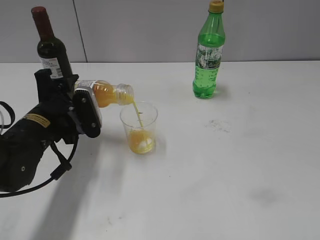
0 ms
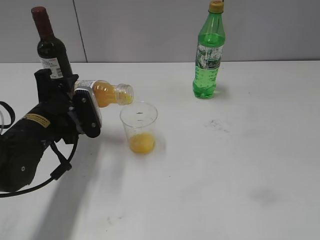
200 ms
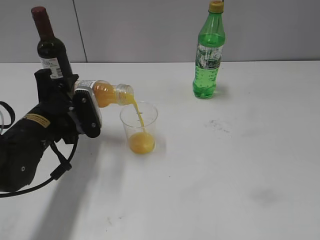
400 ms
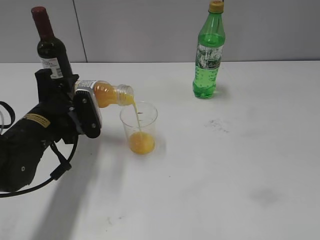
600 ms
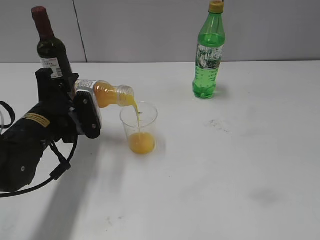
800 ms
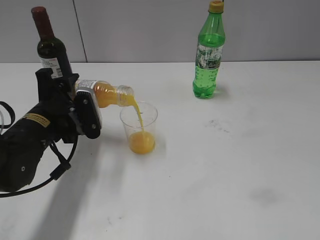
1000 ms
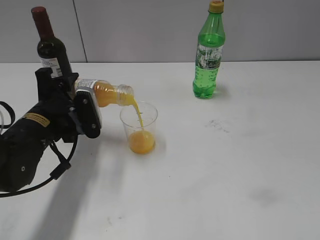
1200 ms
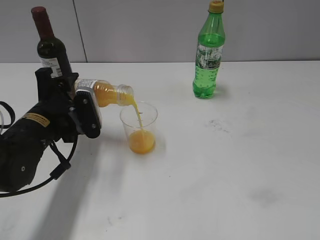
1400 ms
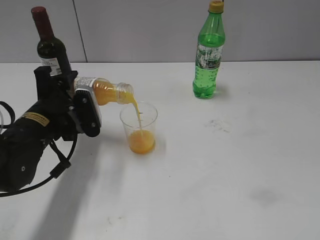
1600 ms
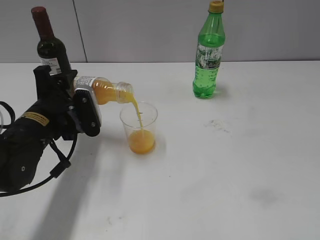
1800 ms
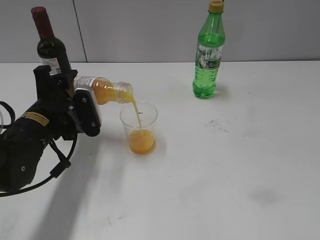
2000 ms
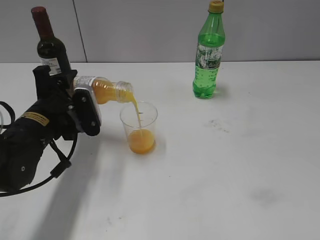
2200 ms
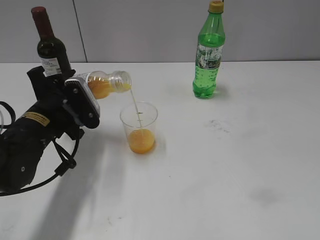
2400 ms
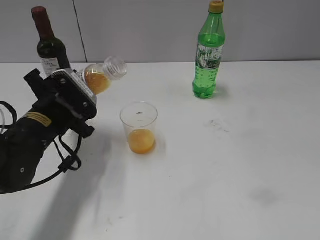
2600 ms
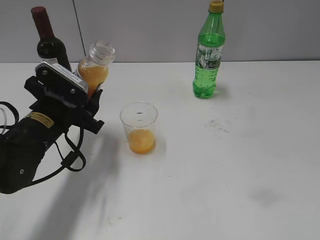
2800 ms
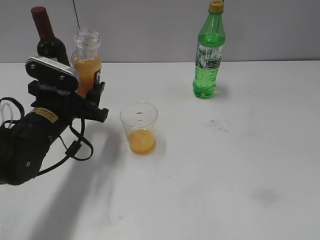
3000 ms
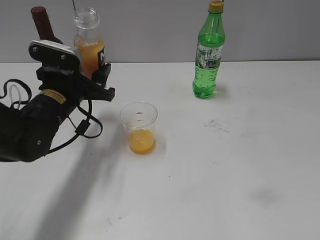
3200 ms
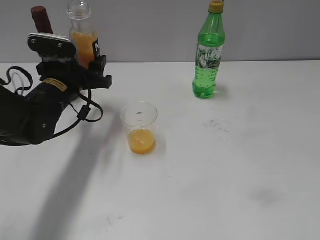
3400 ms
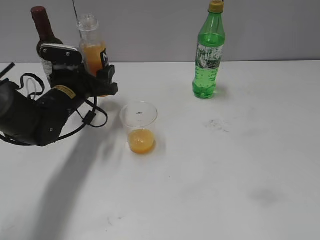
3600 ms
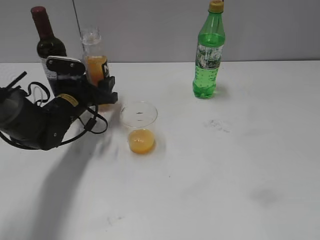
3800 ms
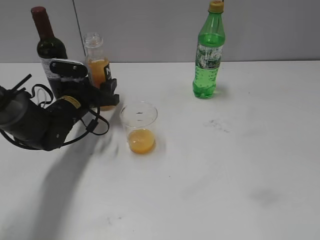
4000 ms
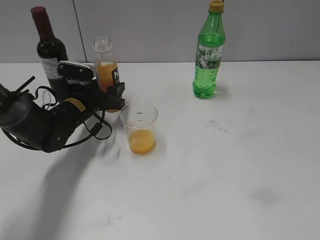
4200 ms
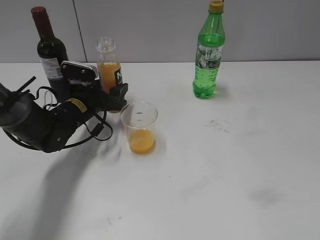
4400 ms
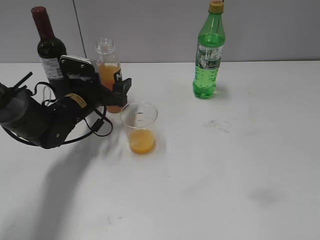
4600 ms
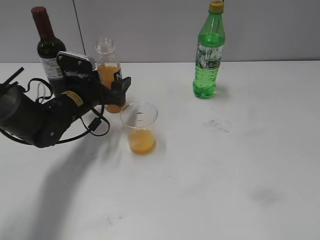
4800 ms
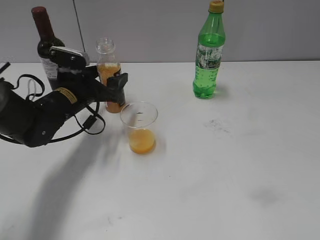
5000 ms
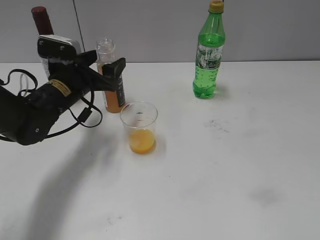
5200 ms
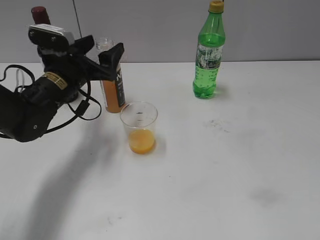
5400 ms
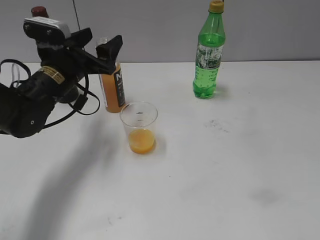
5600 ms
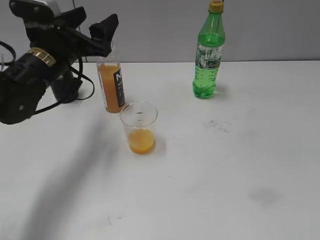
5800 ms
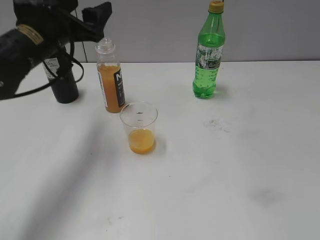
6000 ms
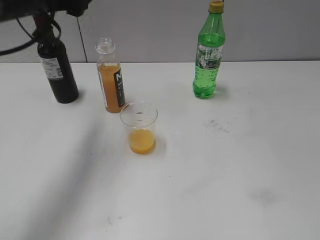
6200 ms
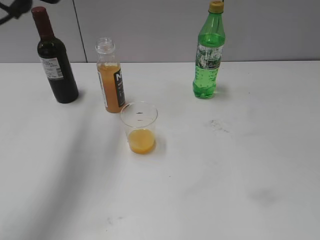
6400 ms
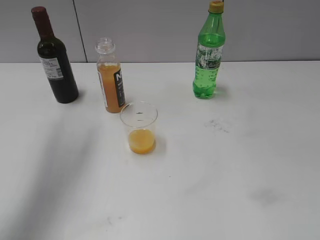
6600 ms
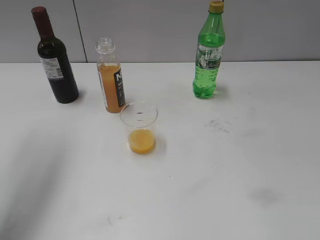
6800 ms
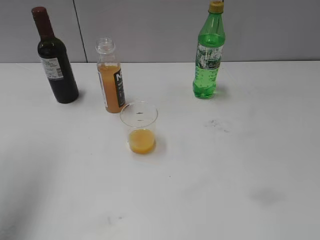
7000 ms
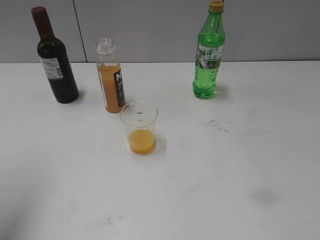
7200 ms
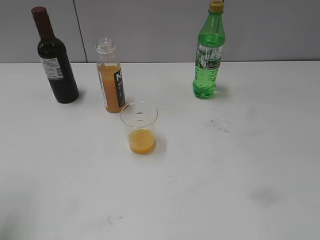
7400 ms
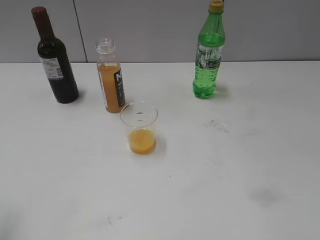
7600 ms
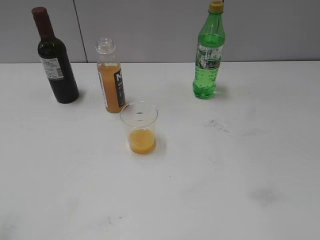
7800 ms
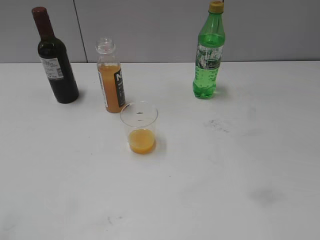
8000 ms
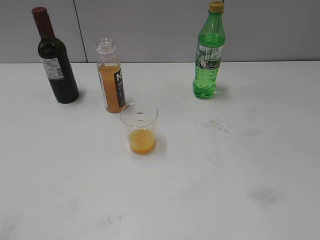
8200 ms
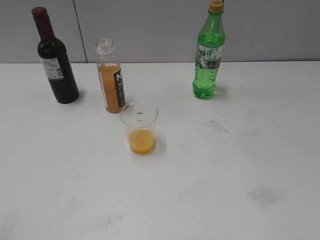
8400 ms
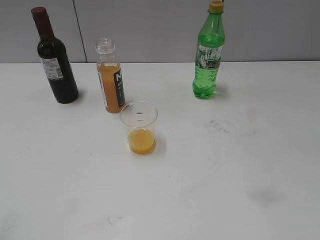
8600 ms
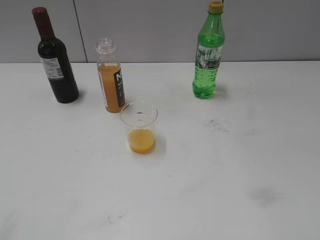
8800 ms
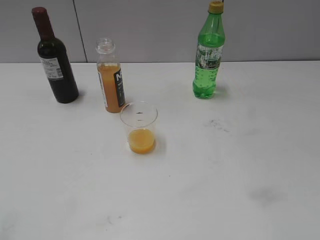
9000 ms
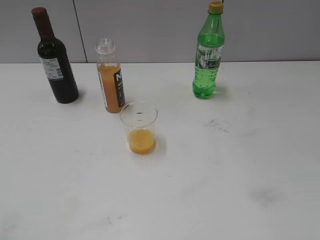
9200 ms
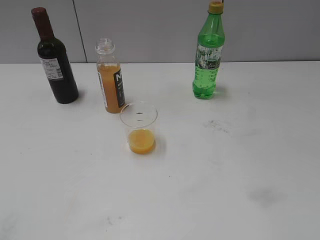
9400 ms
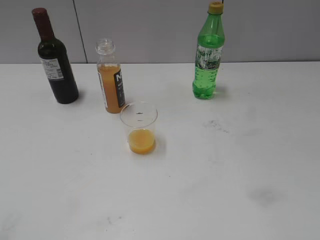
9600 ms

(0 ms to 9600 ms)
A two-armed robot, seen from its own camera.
Step, 0 ms - 2600 ms: Pour the orange juice from bottle to cup with left gripper.
Step, 2800 ms - 4600 ms: Place the orange juice bottle on the table with left gripper.
0 ms - 1600 ms: The two grippers keep their place.
3200 ms - 4800 ms: The left gripper heads forward, covering approximately 5 cm, and opens up.
4800 ms - 6400 ms: The left gripper goes some 25 cm upward.
6400 ms - 8000 ms: The left gripper goes some 30 cm backward and to the left.

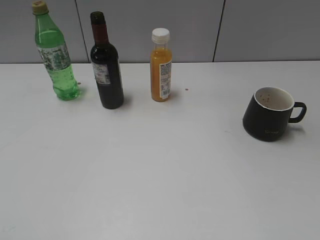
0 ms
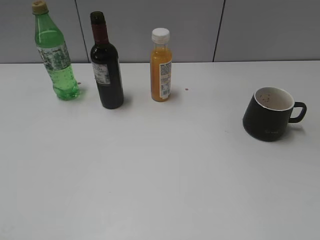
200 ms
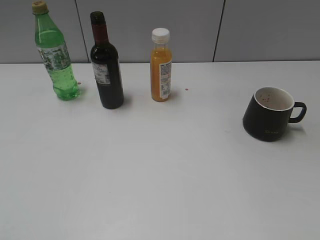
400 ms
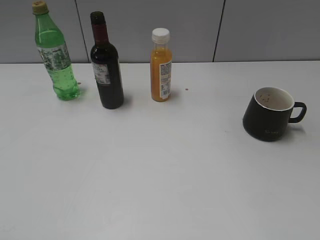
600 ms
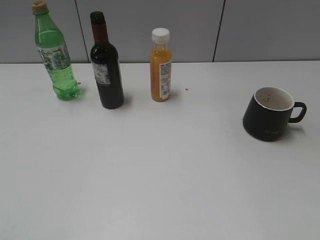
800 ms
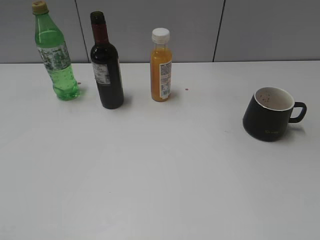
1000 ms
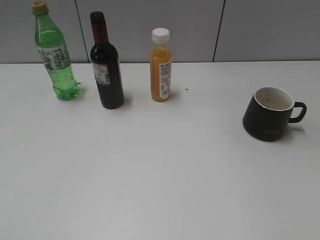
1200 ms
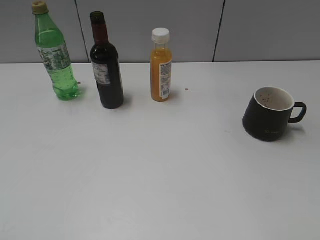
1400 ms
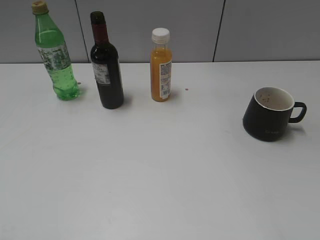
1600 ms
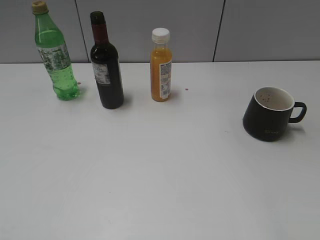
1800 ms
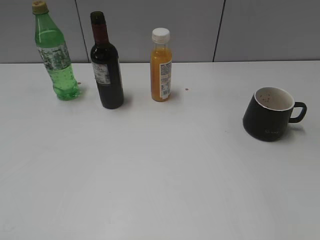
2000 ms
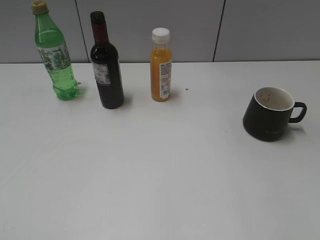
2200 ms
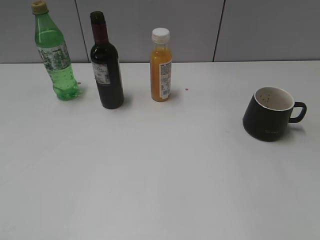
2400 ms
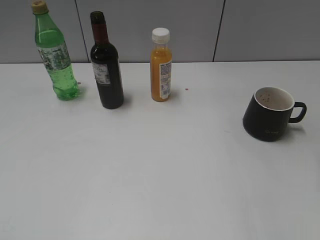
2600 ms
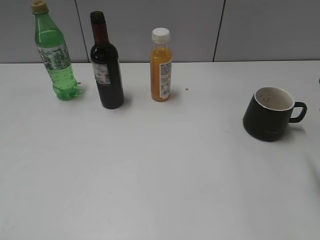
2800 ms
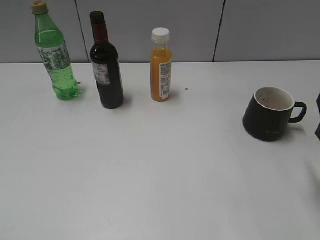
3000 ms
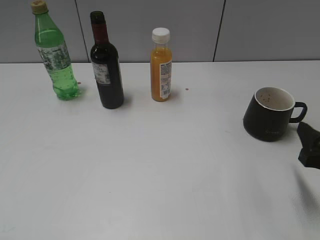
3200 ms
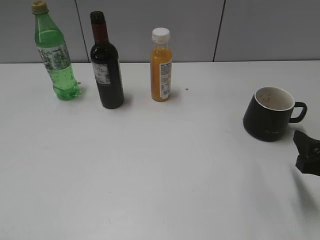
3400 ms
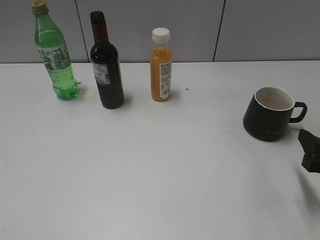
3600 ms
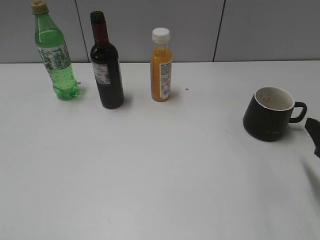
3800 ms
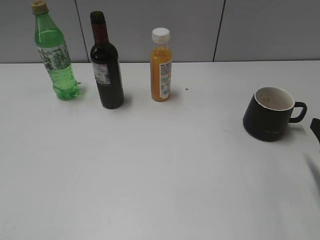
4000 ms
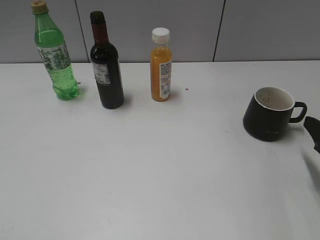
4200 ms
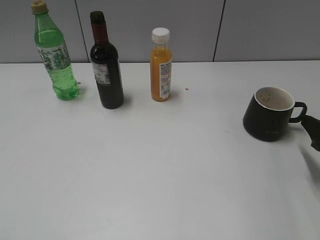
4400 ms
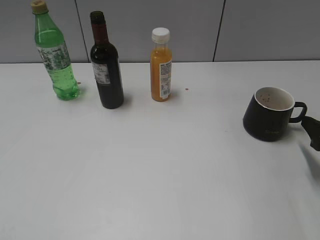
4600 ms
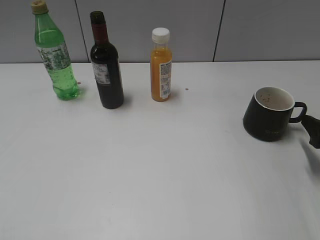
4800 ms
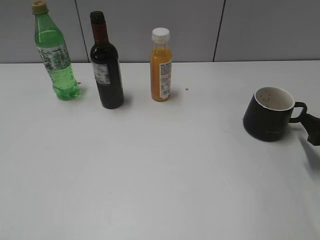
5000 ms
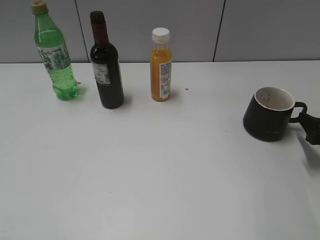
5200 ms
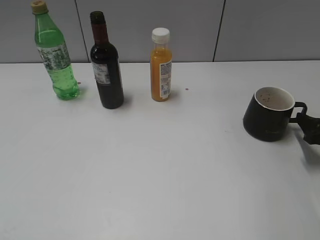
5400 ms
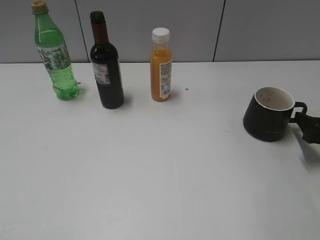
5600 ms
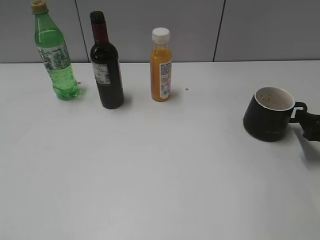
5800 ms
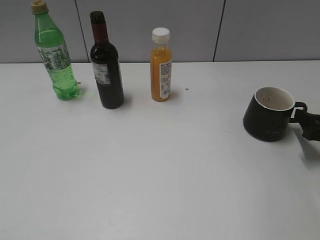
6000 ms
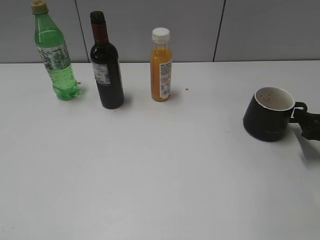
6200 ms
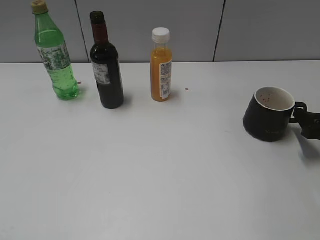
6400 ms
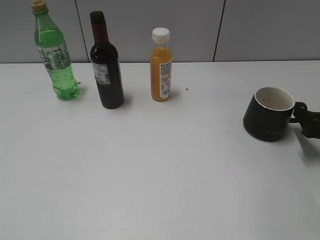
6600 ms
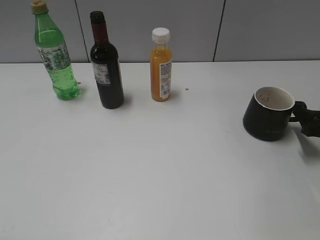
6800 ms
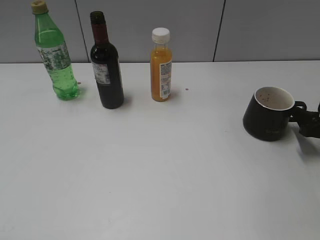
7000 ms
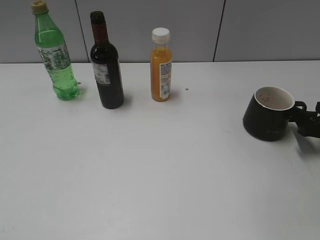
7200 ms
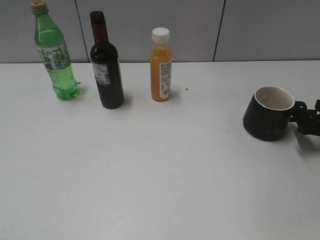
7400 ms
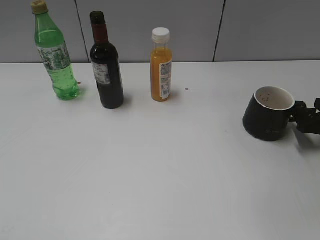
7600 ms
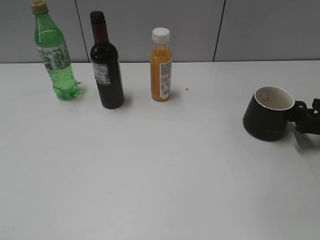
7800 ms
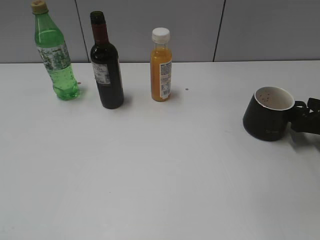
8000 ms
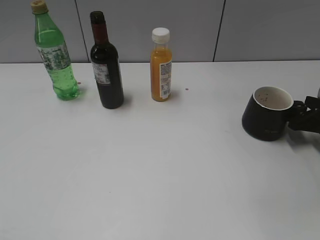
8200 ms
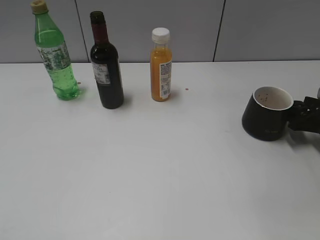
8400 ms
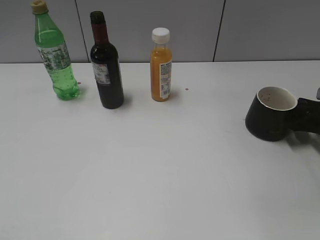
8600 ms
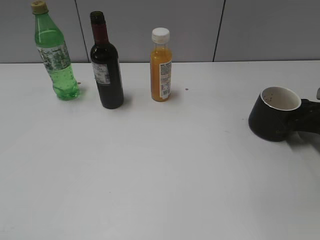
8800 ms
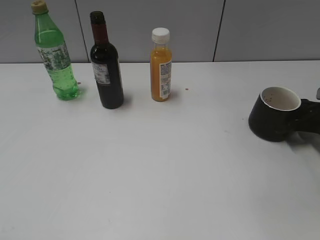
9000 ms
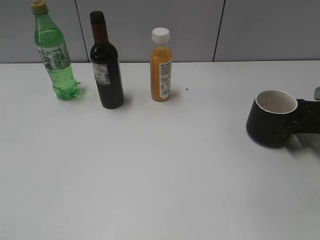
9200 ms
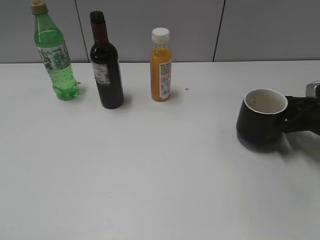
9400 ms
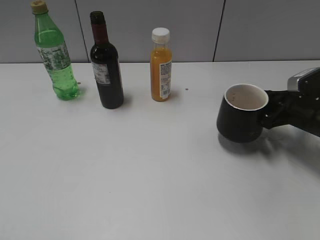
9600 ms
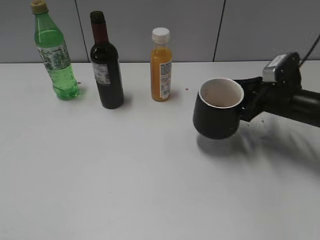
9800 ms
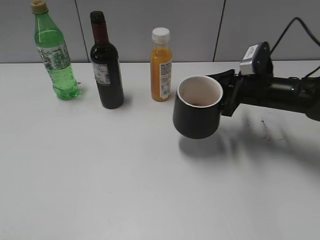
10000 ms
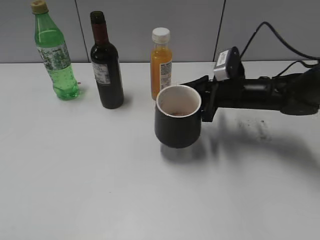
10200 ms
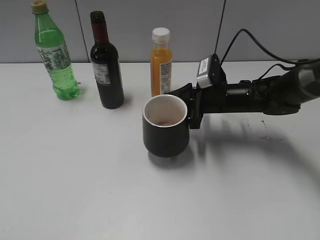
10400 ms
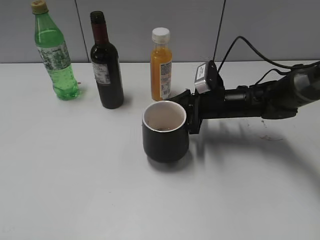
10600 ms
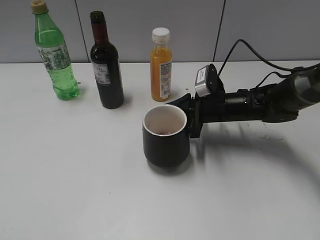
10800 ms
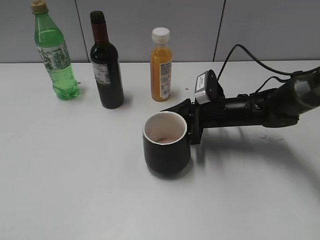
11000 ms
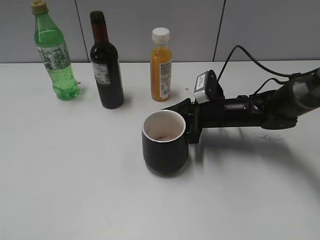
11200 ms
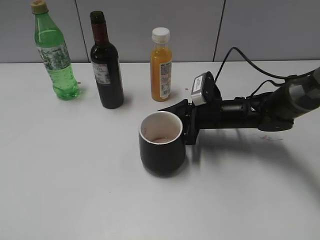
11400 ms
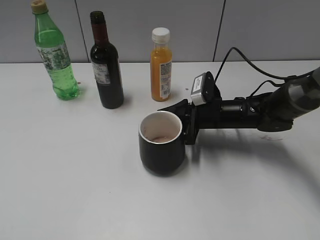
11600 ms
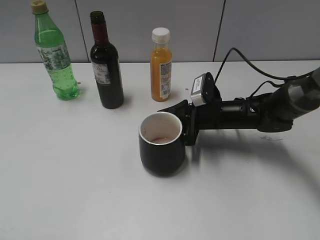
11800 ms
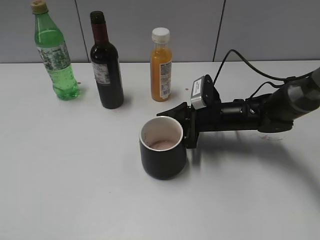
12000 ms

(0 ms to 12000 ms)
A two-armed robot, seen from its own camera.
Step, 1200 ms - 9000 ms: Grasp the black cup with right gripper.
3000 ms - 4400 ms: The right gripper goes approximately 10 cm downward, forward and to the right.
4400 ms - 6000 ms: The right gripper moves about 5 cm.
6000 ms - 7600 ms: The grippers stay close to where they were, moving slightly.
7600 ms - 9000 ms: The right gripper closes.
9000 ms - 10400 ms: The right gripper moves to the left, some 20 cm.
10400 ms - 12000 ms: The grippers stay close to where they were, moving slightly.

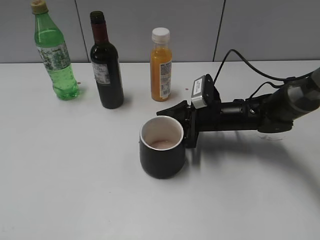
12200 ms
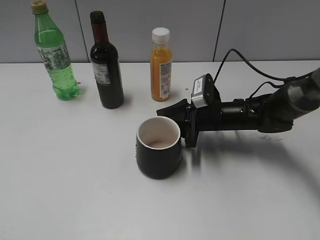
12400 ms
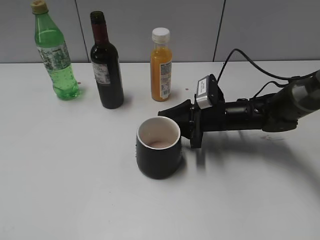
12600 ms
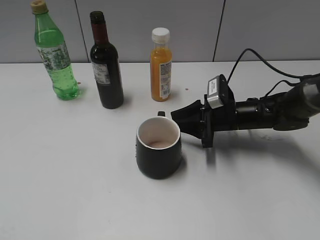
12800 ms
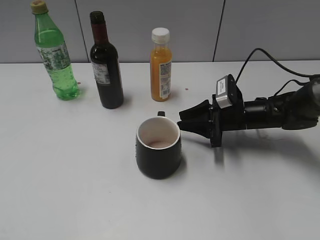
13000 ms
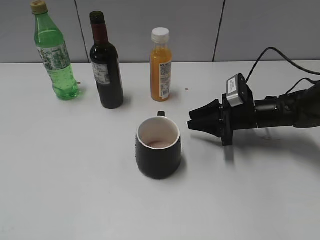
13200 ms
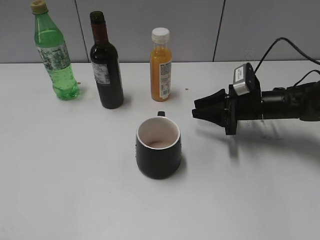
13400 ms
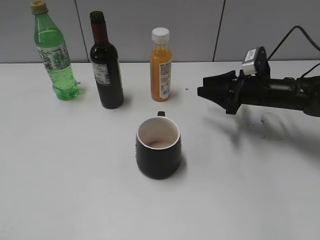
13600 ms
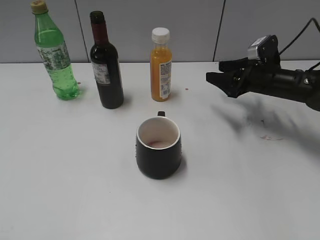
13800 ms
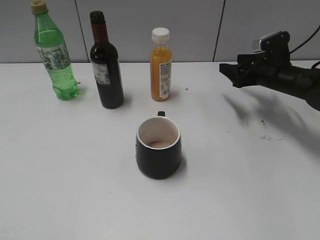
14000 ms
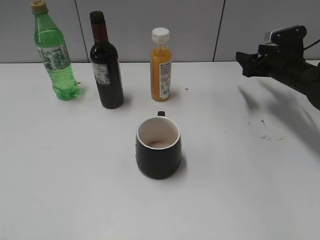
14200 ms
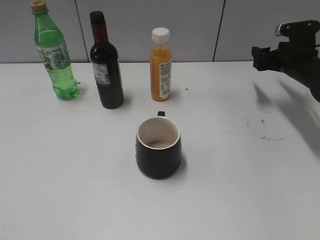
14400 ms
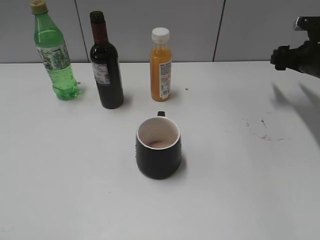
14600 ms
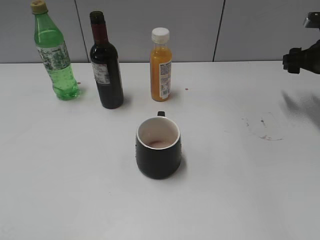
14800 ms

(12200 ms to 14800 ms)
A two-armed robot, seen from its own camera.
12200 ms - 13400 ms: The right gripper travels to the right by approximately 10 cm.
13400 ms - 14800 ms: The right gripper is displaced to the right, upward and forward by approximately 15 cm, and opens its fingers.
